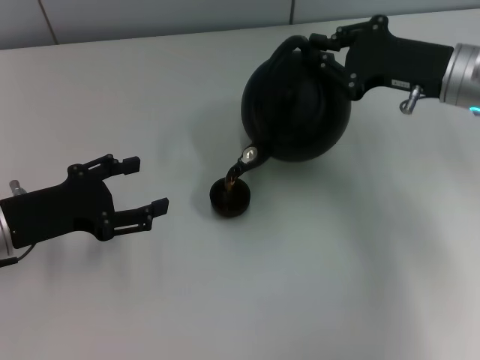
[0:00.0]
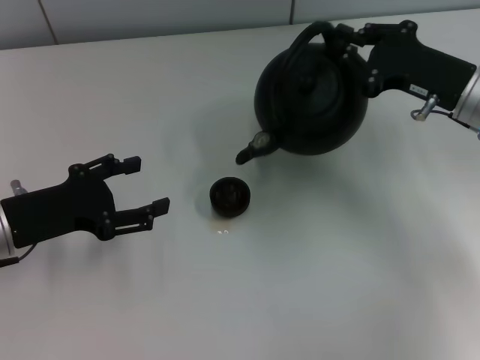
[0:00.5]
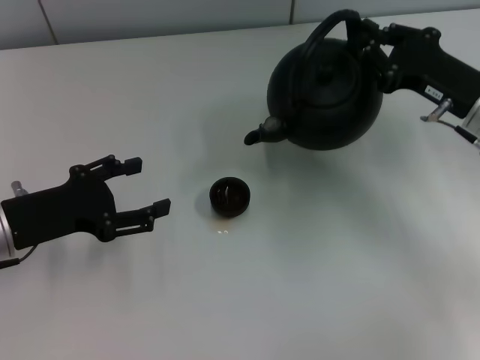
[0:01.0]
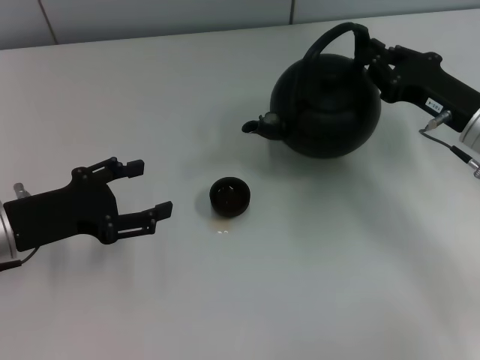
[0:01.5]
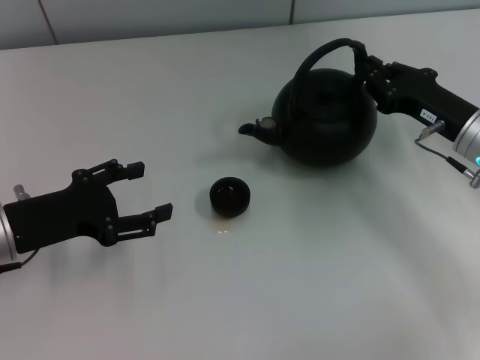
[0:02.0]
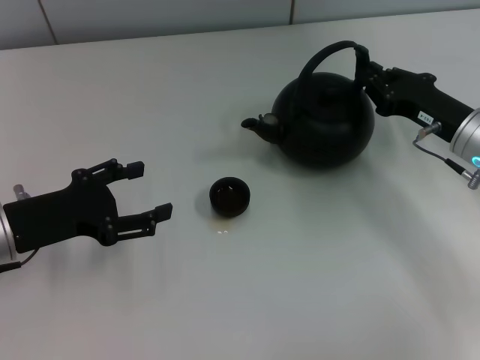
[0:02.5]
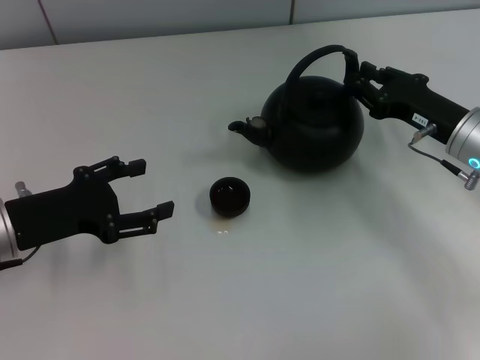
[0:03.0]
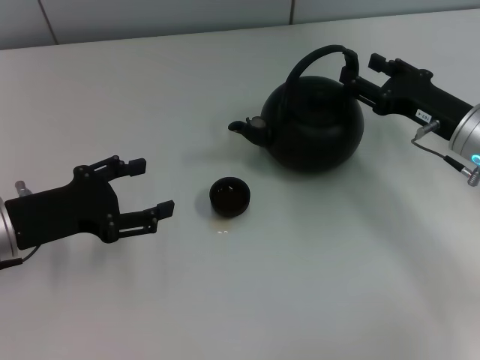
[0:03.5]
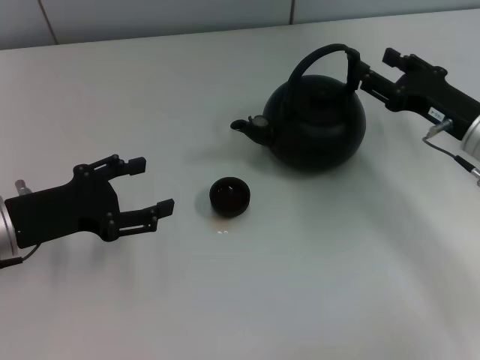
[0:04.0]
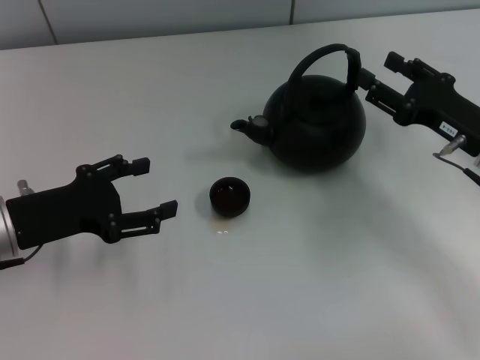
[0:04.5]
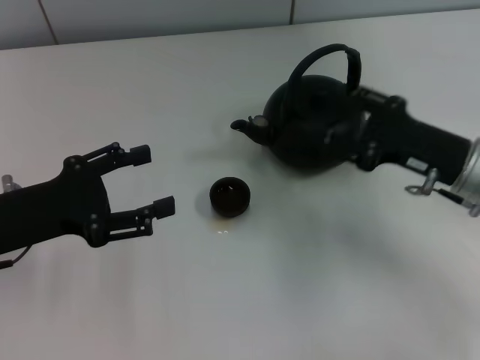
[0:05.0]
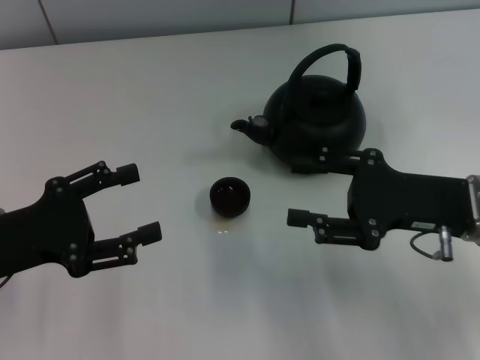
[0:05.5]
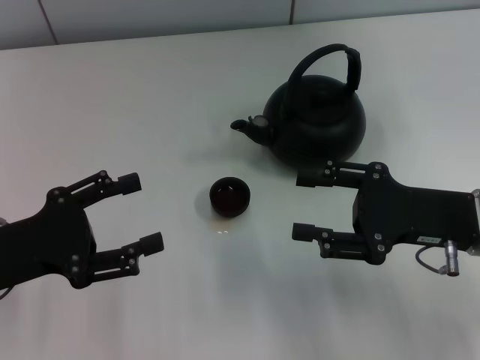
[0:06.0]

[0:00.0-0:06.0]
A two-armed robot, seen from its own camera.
Task of the whole recording: Grasp the handle of the teapot with one hand and pour tea into the teacup.
Step, 0:01.0 to 0:04.5: Put down the teapot with the right gripper.
0:00.0 to 0:02.0: The right gripper shifts roughly 5 cm downward.
0:02.0 to 0:04.0: The right gripper opens.
0:04.0 to 0:06.0: The right gripper shifts some 10 cm backward; the left gripper changes place by some 5 cm.

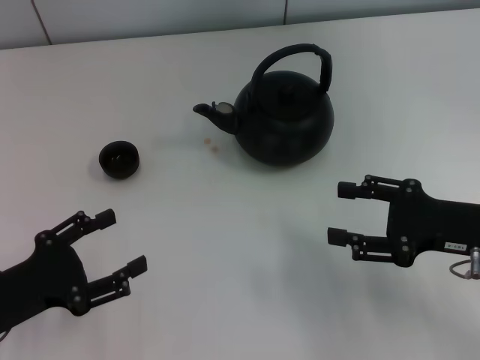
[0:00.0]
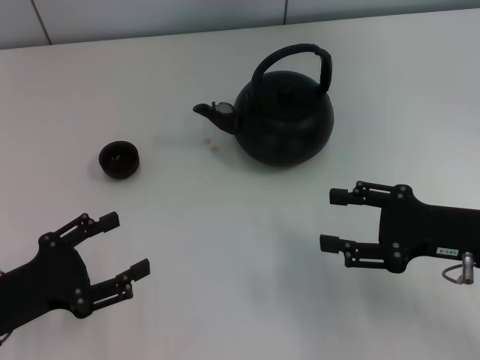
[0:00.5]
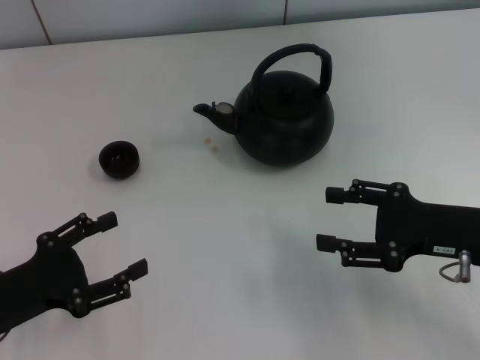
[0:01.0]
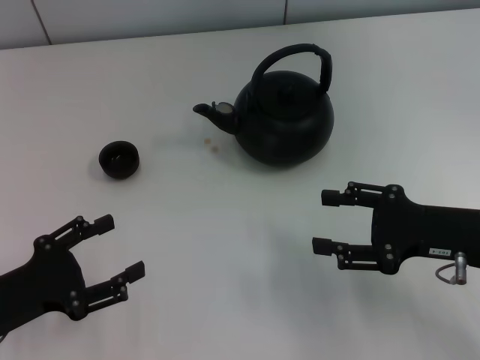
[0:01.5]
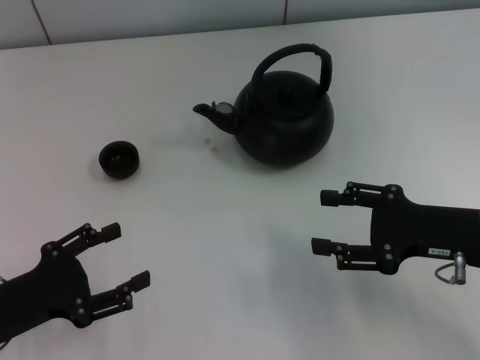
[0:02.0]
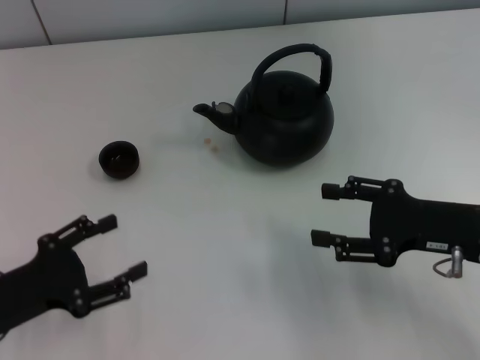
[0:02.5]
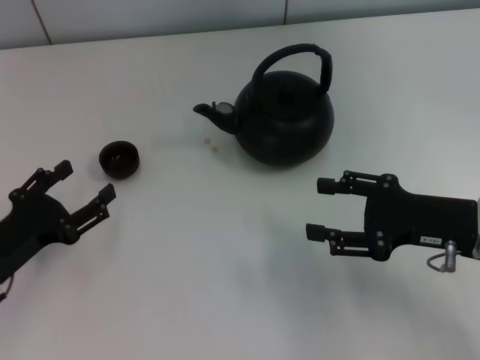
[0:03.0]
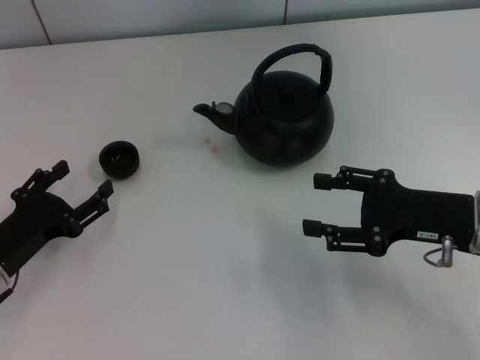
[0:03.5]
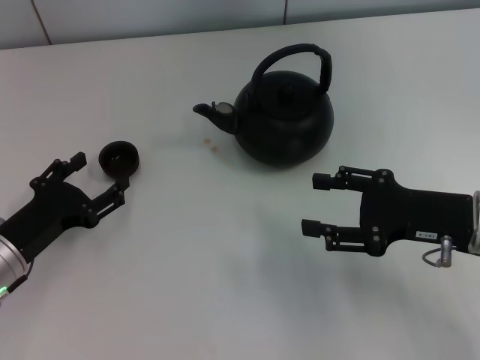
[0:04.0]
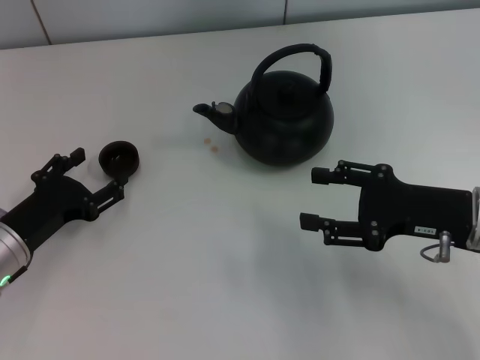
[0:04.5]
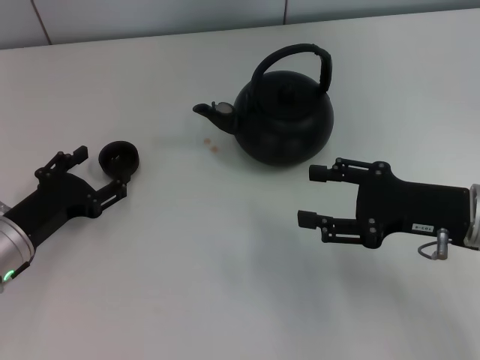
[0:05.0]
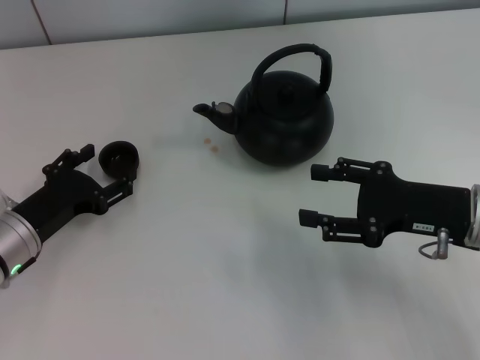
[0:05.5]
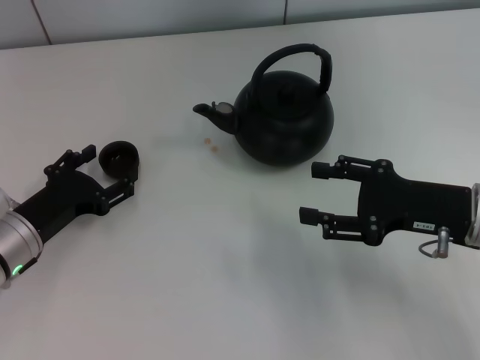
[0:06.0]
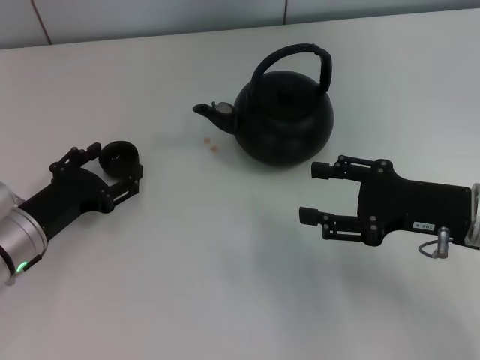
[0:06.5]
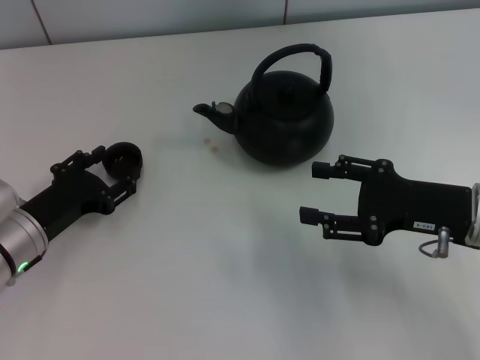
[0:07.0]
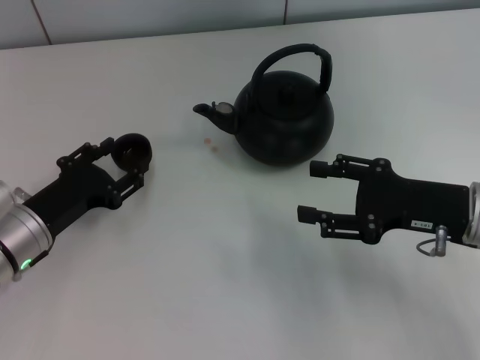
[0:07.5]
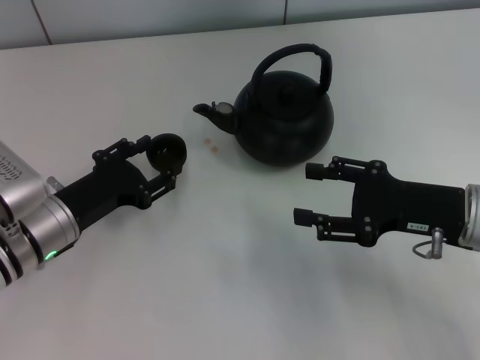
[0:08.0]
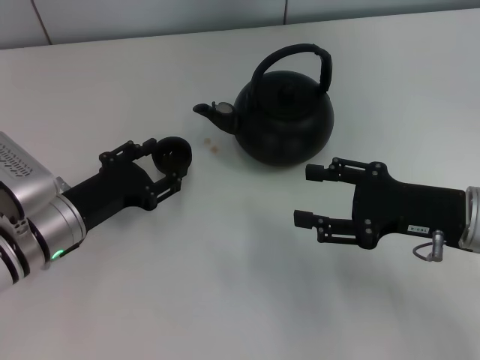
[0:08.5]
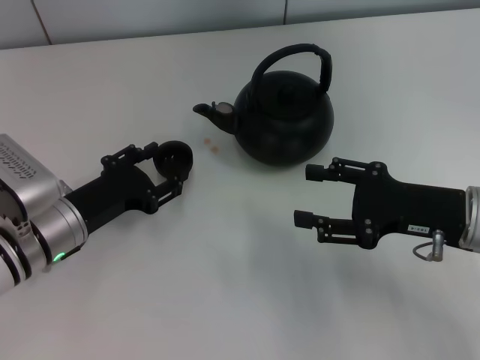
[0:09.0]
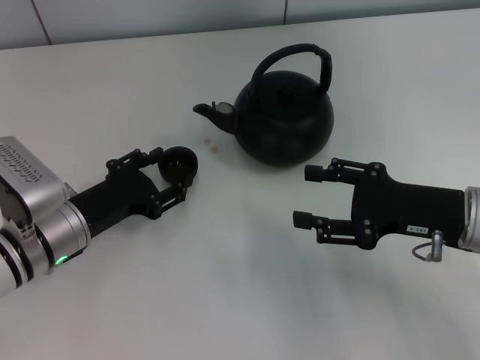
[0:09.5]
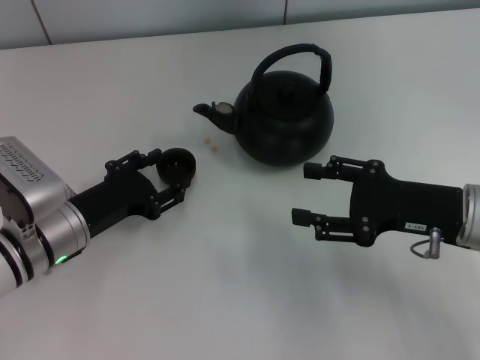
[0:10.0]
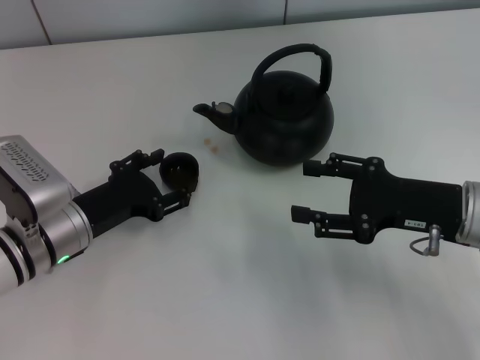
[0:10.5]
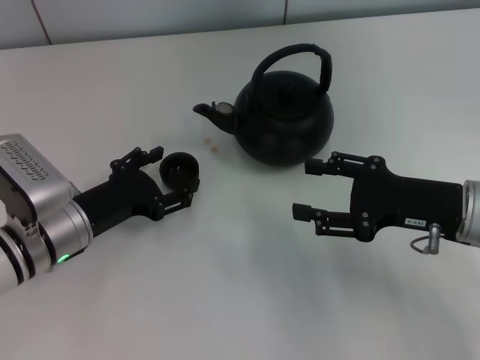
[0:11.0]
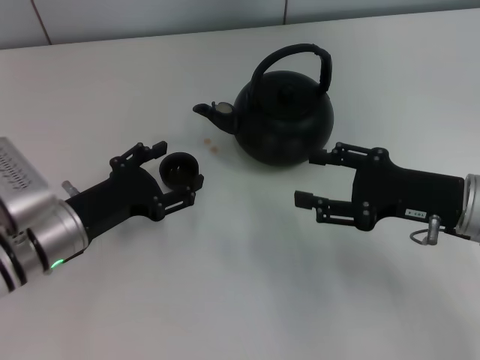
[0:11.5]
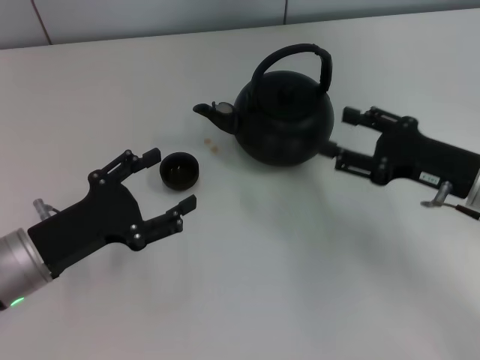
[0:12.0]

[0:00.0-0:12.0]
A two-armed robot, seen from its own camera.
Task of the whole recording: Grasp the handle of the teapot with one hand and pour tea into the teacup.
Step, 0:00.0 to 0:07.5: Pick up the teacup with the left gripper.
Step, 0:08.0 to 0:11.5: Place the teacup in the center of view with the left gripper.
0:00.0 to 0:02.0: The grippers move only a little.
0:02.0 to 0:04.0: The left gripper shifts about 5 cm forward.
0:04.0 to 0:08.0: The grippers move only a little.
0:08.0 to 0:10.0: Both grippers stay put.
0:10.0 to 0:12.0: The left gripper shifts by roughly 5 cm, and opens.

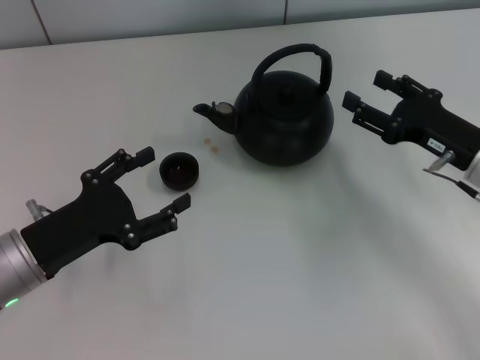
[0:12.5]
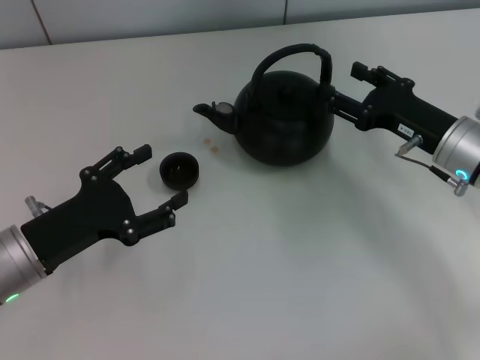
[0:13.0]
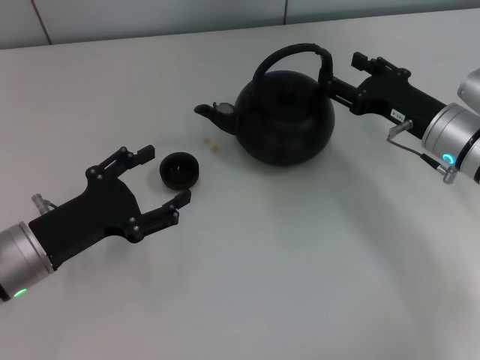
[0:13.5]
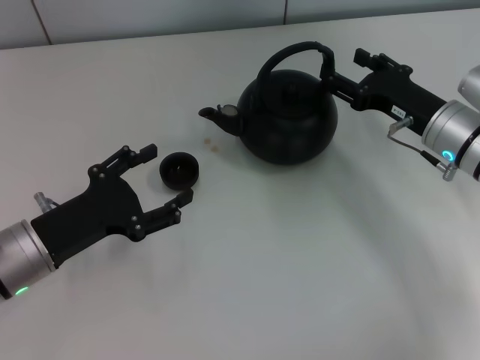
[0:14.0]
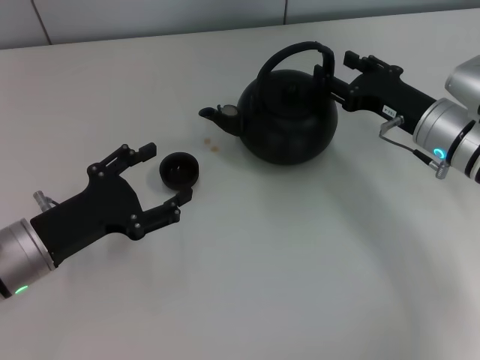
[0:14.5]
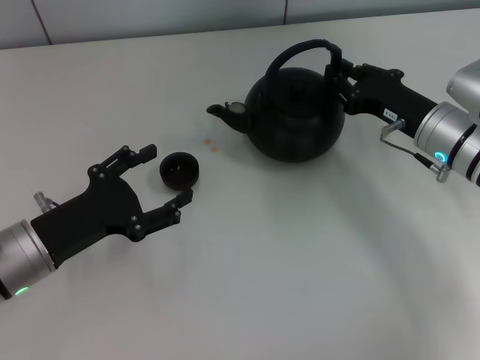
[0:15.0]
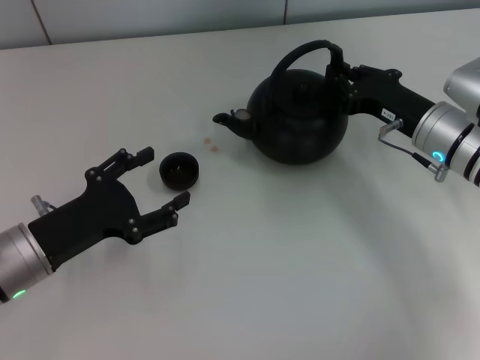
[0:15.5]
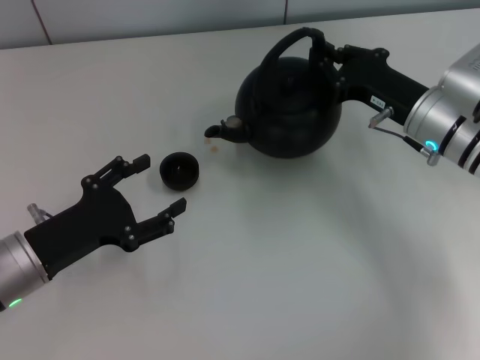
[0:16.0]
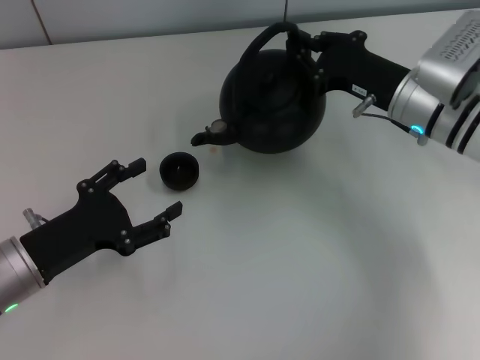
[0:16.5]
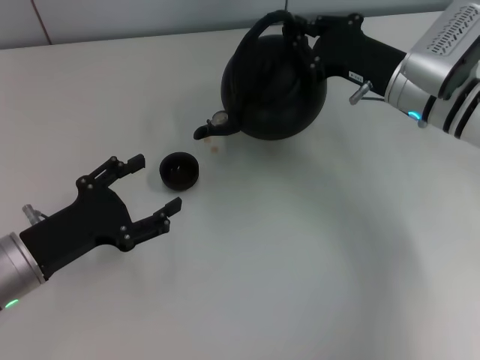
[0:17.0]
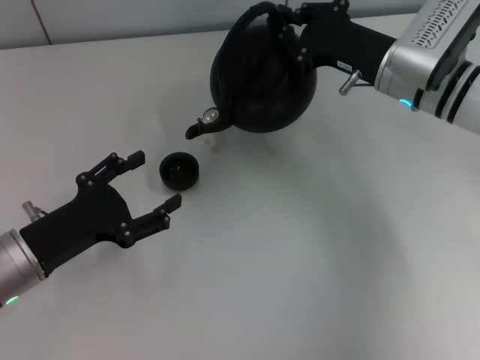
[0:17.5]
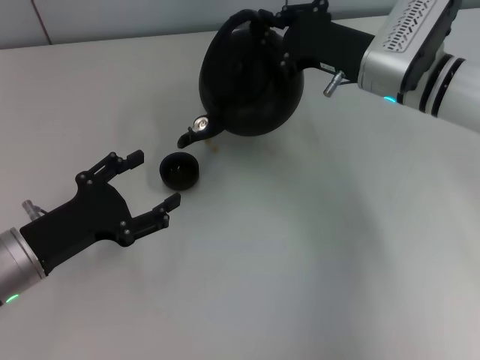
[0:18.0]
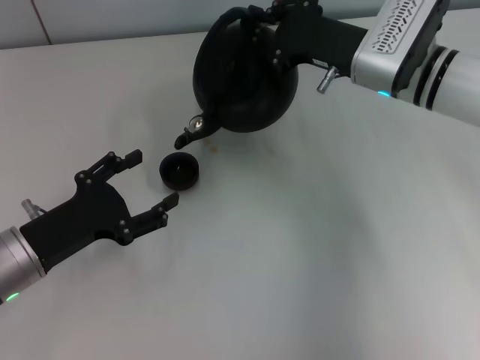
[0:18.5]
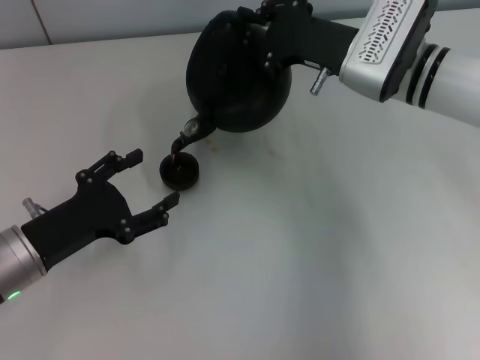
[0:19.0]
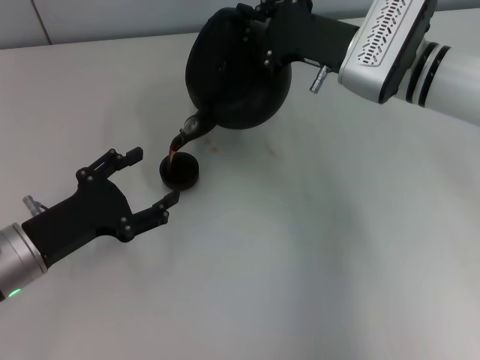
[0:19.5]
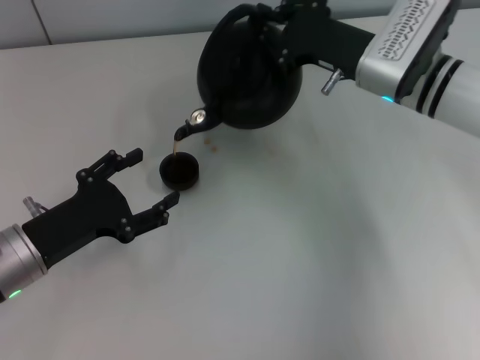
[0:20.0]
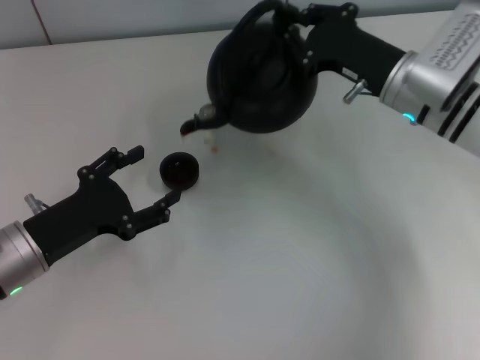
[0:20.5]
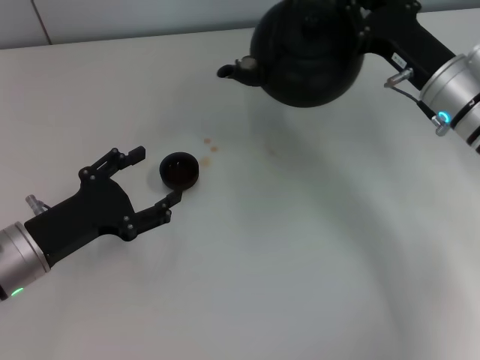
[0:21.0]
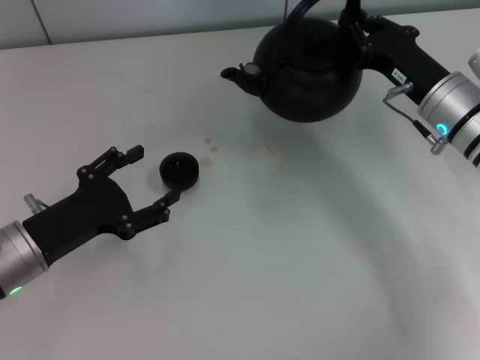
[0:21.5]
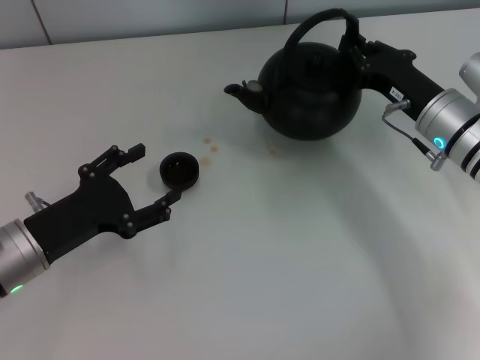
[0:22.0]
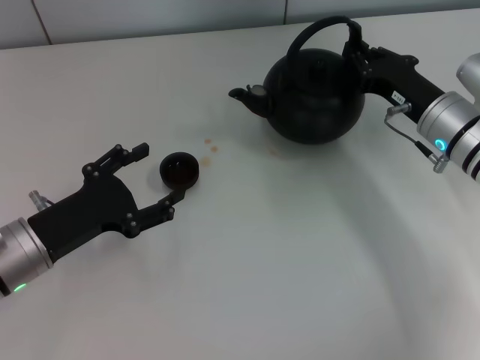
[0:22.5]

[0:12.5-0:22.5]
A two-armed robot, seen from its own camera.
Task of the whole recording: Grasp the handle of the teapot with one hand and pour tea into the teacup.
Step, 0:12.5 to 0:16.0: Pick up the teapot with the right gripper.
0:12.5 to 0:14.5: The right gripper heads forward, covering some 5 cm.
0:14.5 to 0:16.5: The right gripper closes up.
0:16.5 to 0:18.5: The right gripper ends up roughly 5 cm from where it was.
0:18.5 to 0:20.5: The grippers move only a little.
0:20.5 to 0:22.5: The right gripper changes place by about 5 cm.
